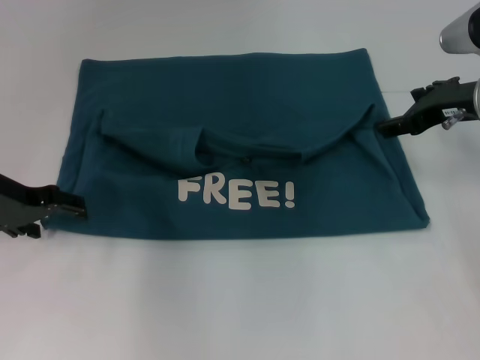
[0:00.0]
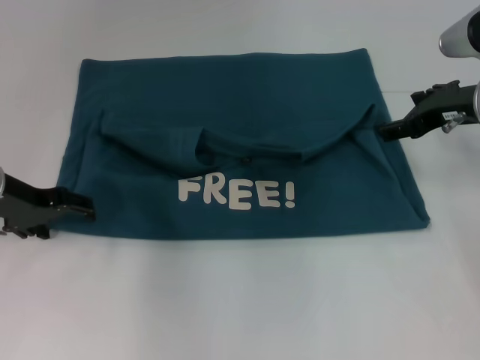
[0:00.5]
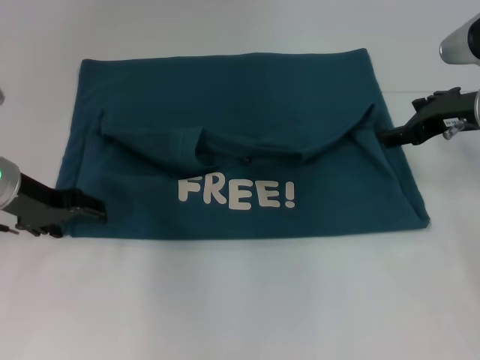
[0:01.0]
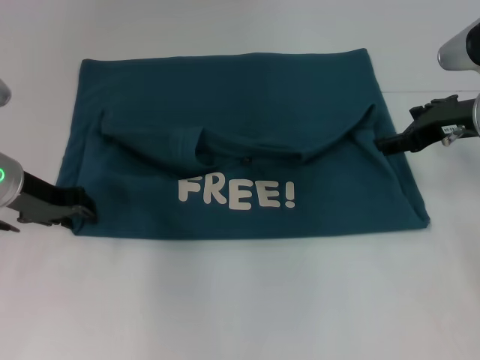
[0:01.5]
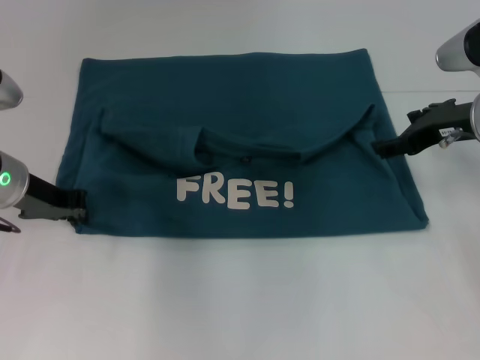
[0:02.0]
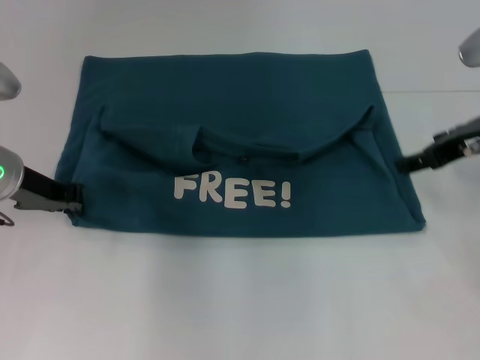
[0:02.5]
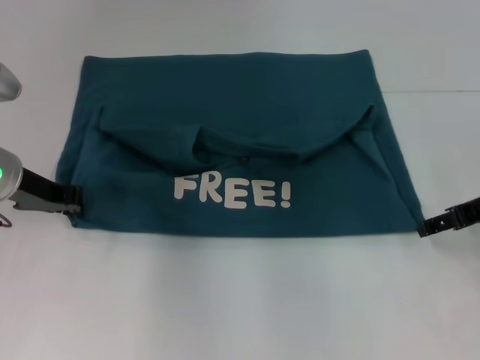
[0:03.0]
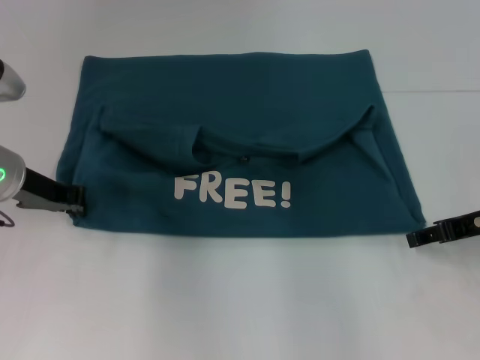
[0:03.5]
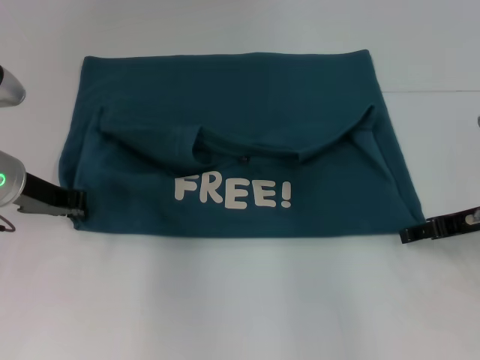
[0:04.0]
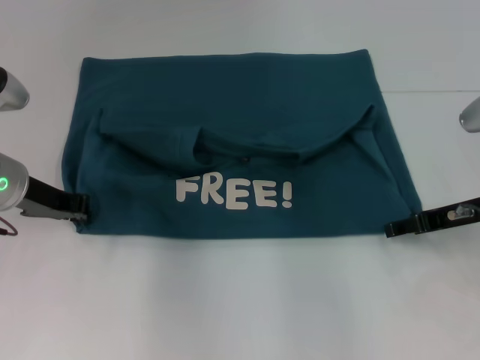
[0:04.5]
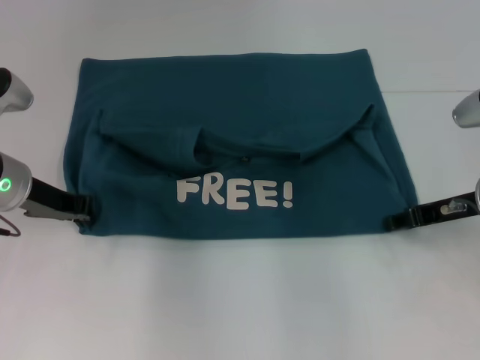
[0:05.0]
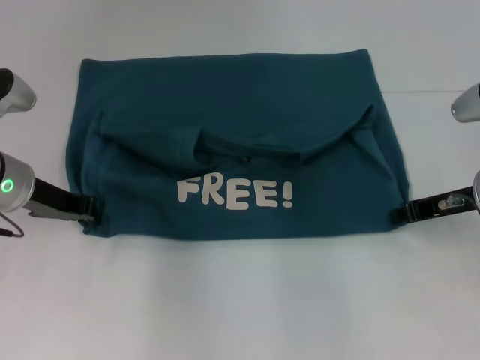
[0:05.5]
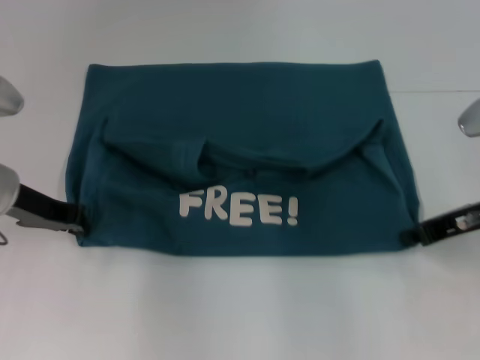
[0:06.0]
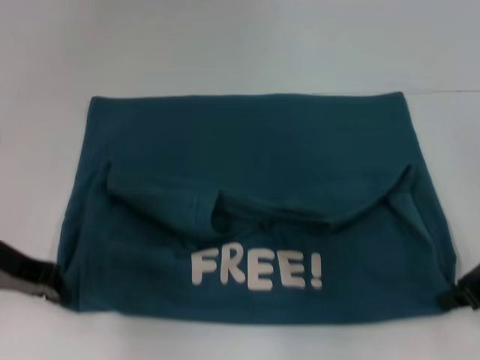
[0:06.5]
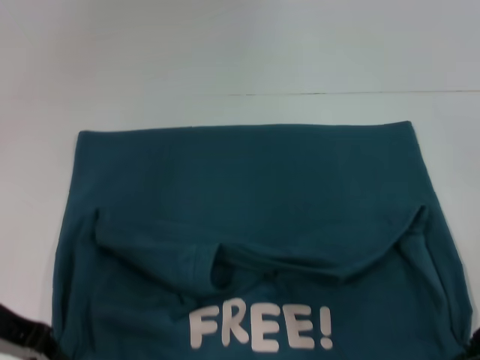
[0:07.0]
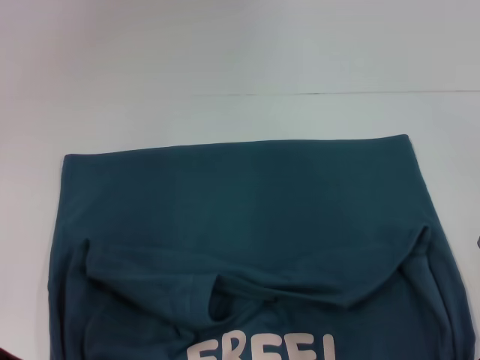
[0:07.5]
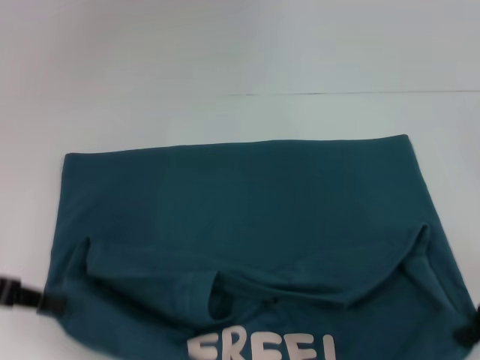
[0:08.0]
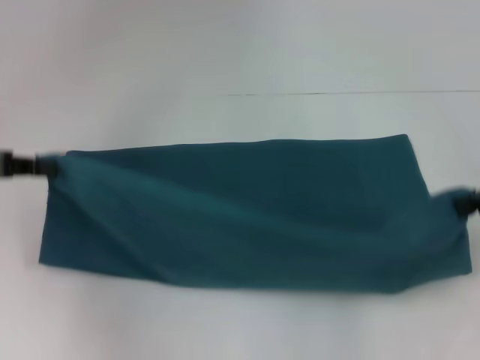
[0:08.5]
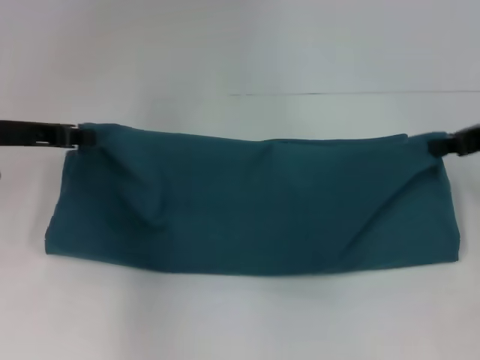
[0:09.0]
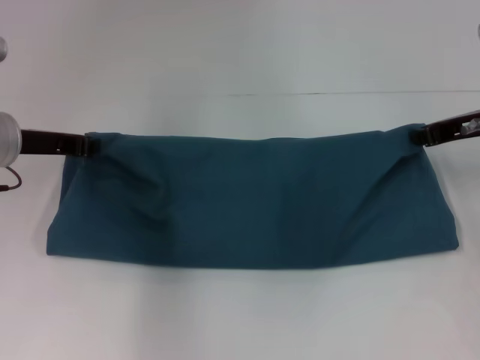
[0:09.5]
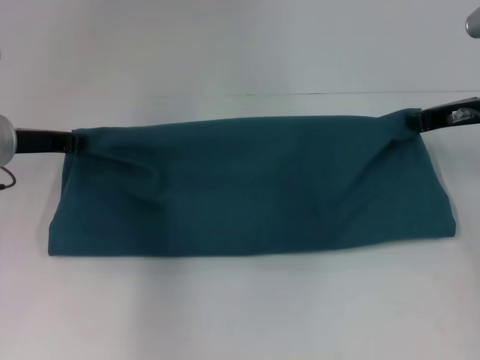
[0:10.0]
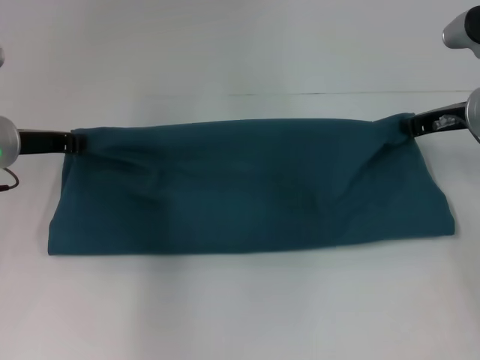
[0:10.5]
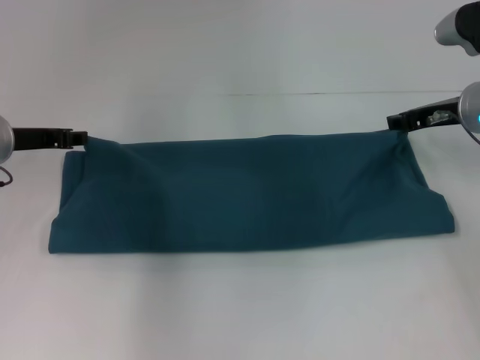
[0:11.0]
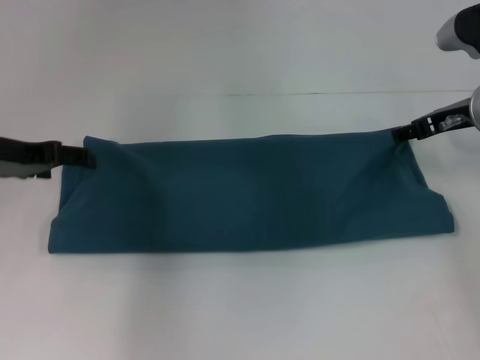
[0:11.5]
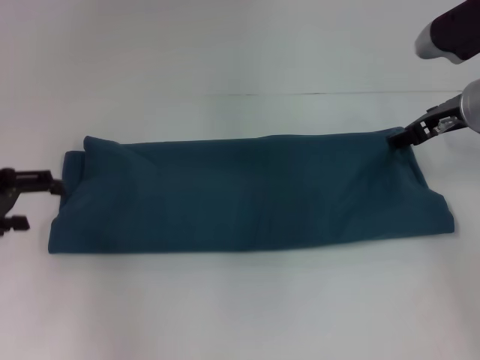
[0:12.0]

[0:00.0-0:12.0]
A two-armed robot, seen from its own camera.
Step, 0.0 to 6.5 s: Pull the clothes with your left hand.
Step, 0.0 to 6.5 s: Pull the clothes with your right hand.
Step, 7.0 to 11.5 s: Fold the clothes to the left.
Step, 7.0 to 11.5 s: Fold the clothes to the right.
0.0 to 2.0 s: The left gripper closes up.
2.0 to 4.0 s: The right gripper goes approximately 5 cm backward.
4.0 to 6.0 s: The right gripper closes its fingers.
6.0 to 8.0 s: The left gripper goes some 10 cm backward and to the left. The right gripper shifts approximately 5 cm backward.
8.0 to 10.0 s: The left gripper heads forward and to the right, covering roughly 15 cm. Meanwhile the right gripper goes roughly 15 cm forward.
10.0 to 12.0 s: The right gripper opens its fingers. Meanwhile the left gripper is displaced backward and to the left by about 10 cm, and opens up.

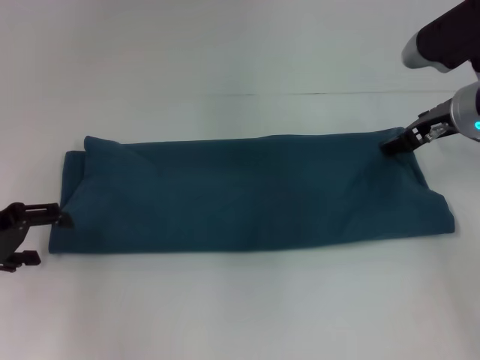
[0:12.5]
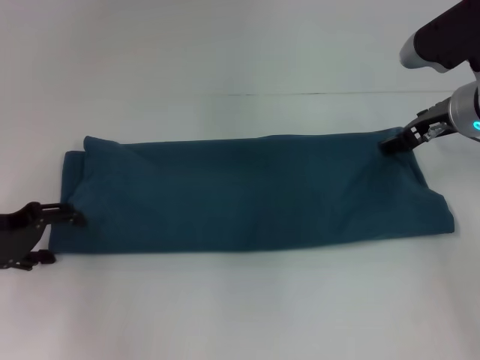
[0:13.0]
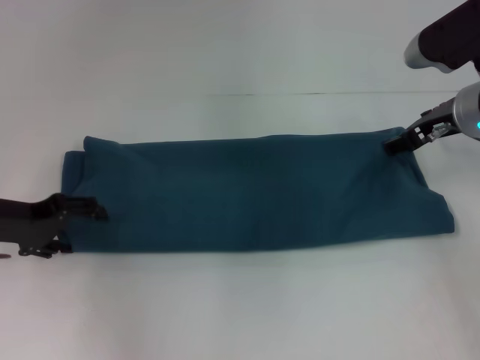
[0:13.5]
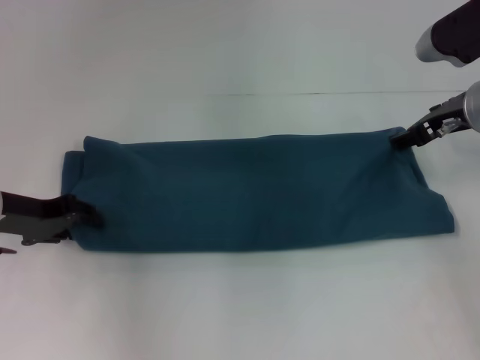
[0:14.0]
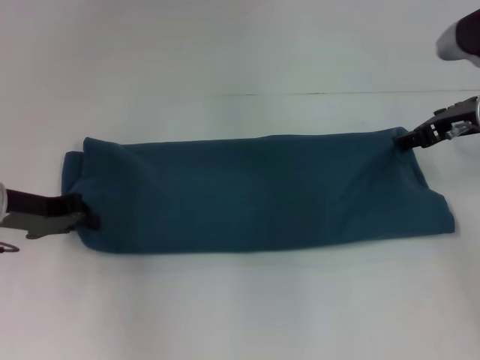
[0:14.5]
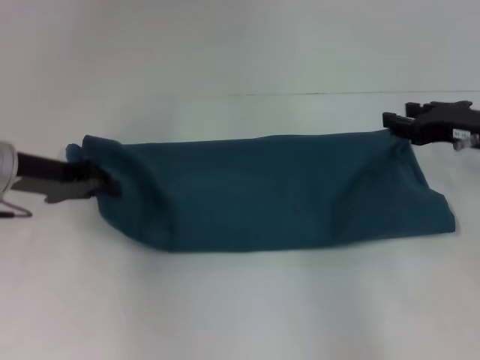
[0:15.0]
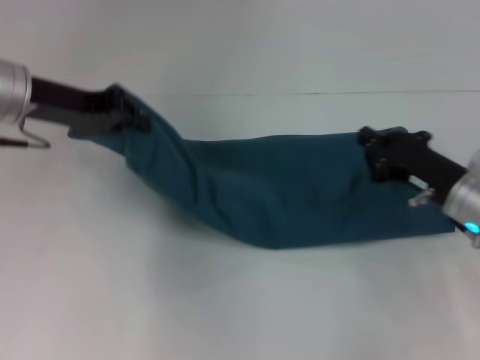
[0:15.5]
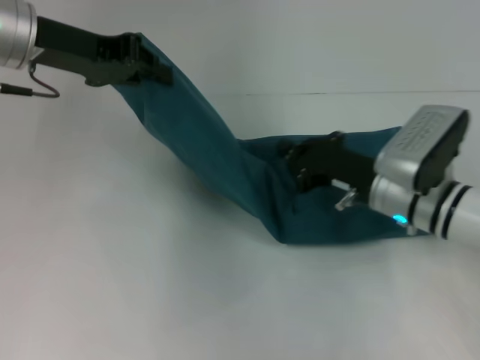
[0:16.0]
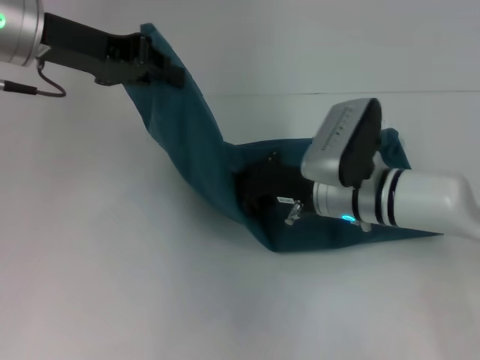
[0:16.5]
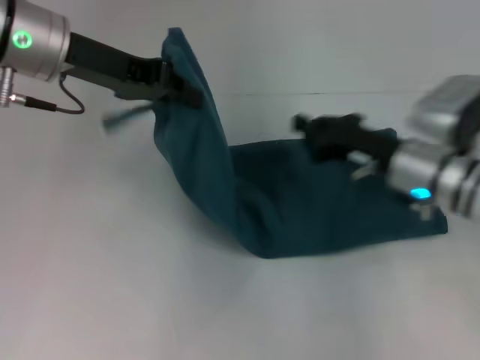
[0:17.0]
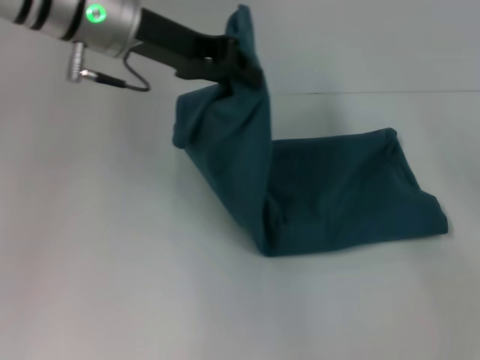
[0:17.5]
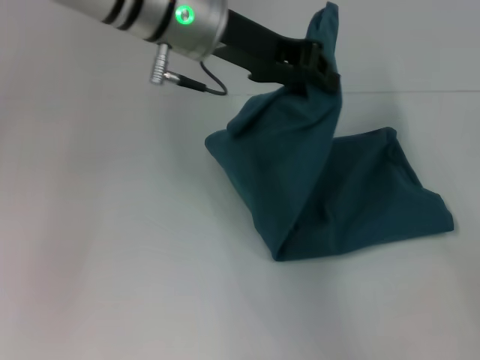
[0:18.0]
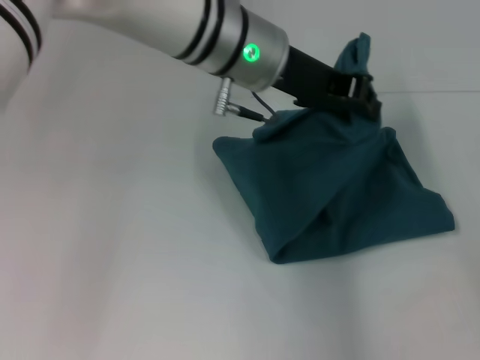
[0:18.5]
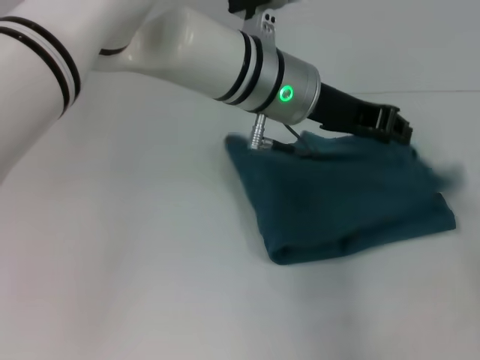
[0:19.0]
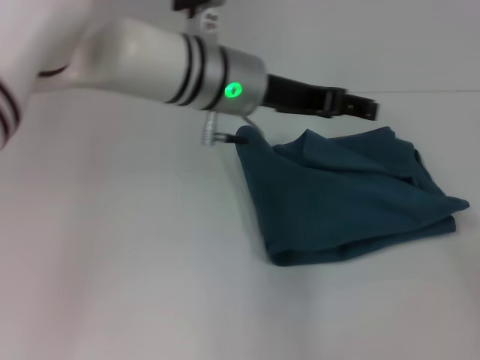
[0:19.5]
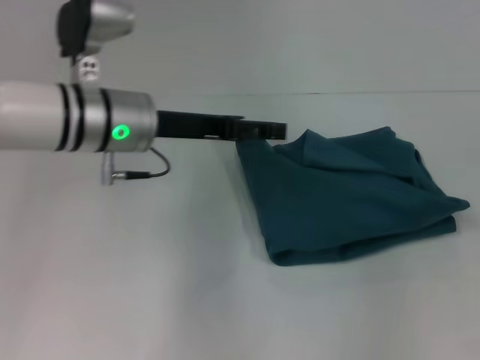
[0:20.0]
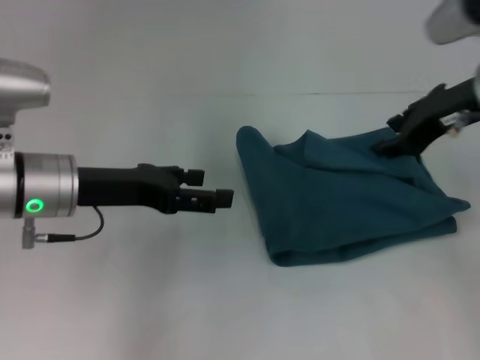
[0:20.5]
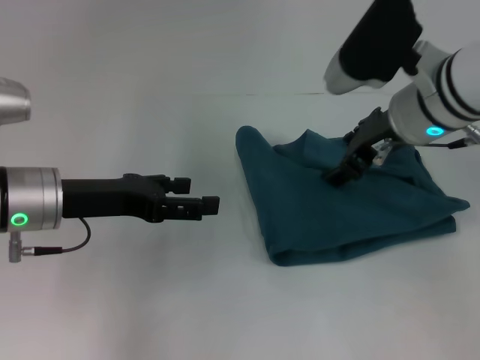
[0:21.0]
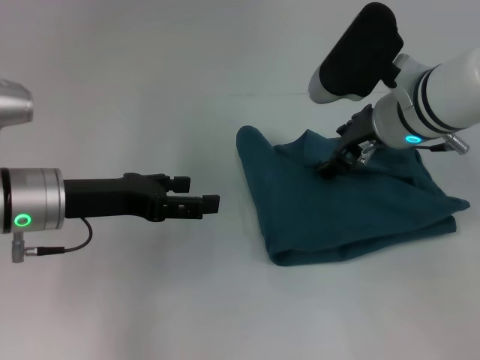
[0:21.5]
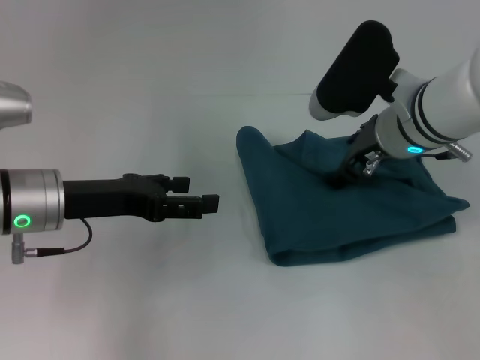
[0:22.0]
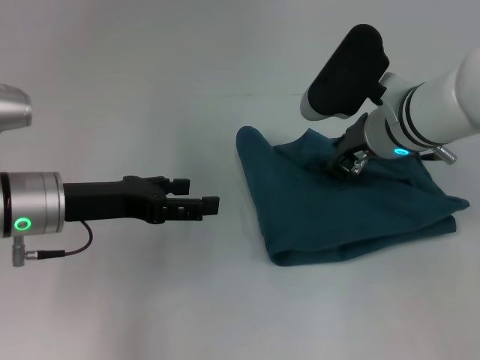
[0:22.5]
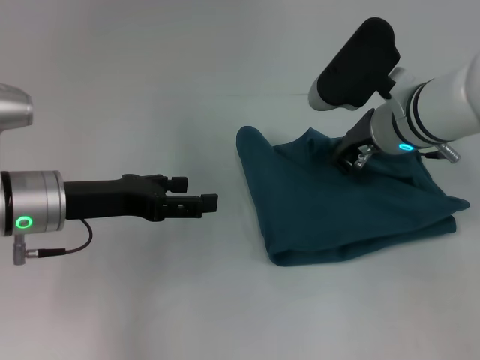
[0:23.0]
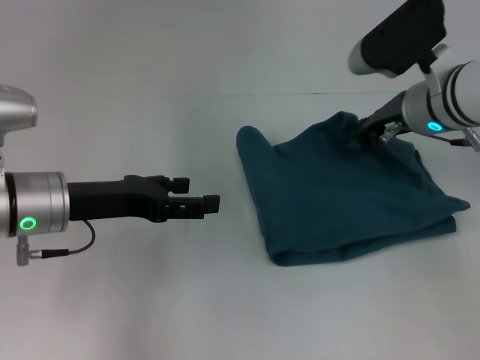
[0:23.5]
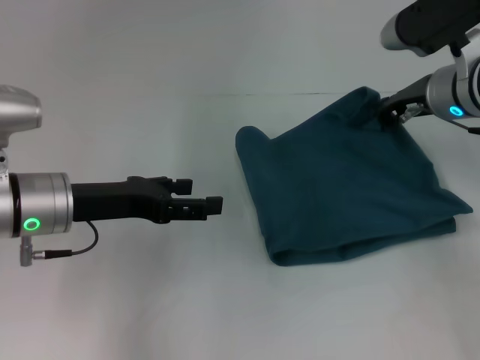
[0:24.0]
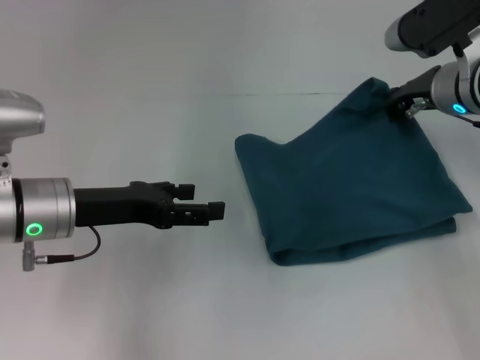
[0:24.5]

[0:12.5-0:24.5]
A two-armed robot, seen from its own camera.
Step, 12.5 to 16.5 s: Press the middle of the clothes with your right hand.
Step, 17.0 to 19.0 s: Fold the clothes to the left.
12.5 to 14.5 s: The left gripper shifts by about 5 cm, and closes.
14.5 to 16.5 s: The right gripper shifts about 15 cm to the left and downward, and closes its fingers. The left gripper moves upward and to the right, roughly 15 cm.
16.5 to 18.5 s: The right gripper travels to the right by roughly 30 cm. The left gripper moves to the right, some 20 cm.
18.5 to 20.5 s: The right gripper shifts roughly 25 cm to the left, forward and upward, while the left gripper heads to the left and downward, covering approximately 20 cm, and opens up.
20.5 to 22.5 s: The right gripper moves to the left and downward, some 10 cm.
22.5 to 24.5 s: The right gripper goes some 5 cm to the right, and closes up.

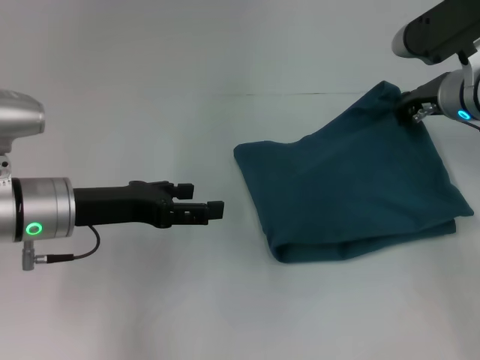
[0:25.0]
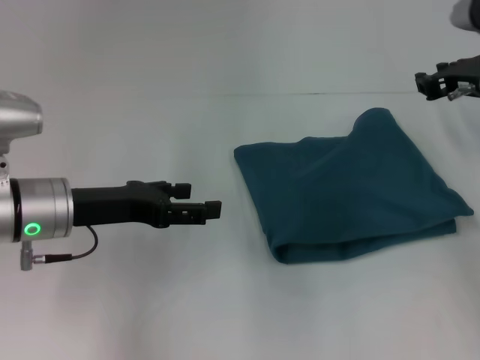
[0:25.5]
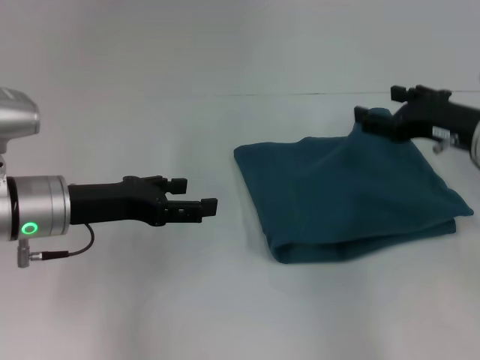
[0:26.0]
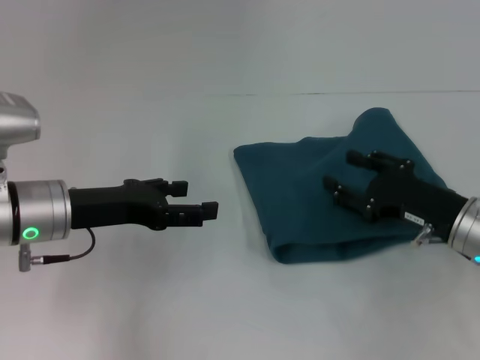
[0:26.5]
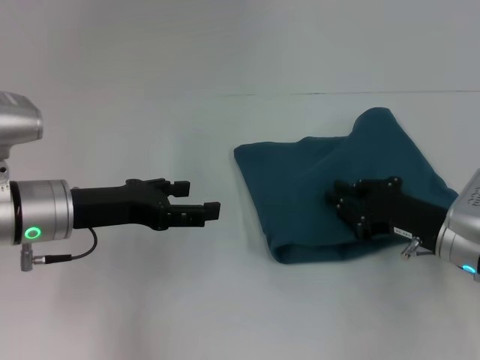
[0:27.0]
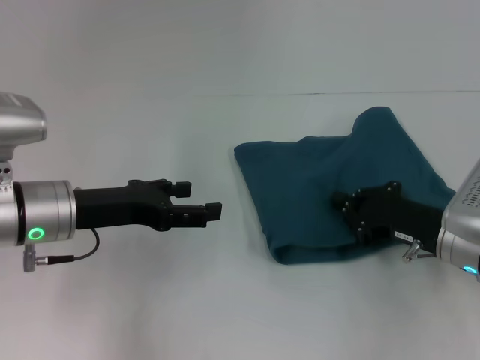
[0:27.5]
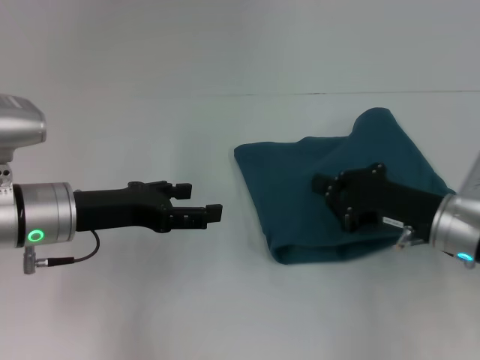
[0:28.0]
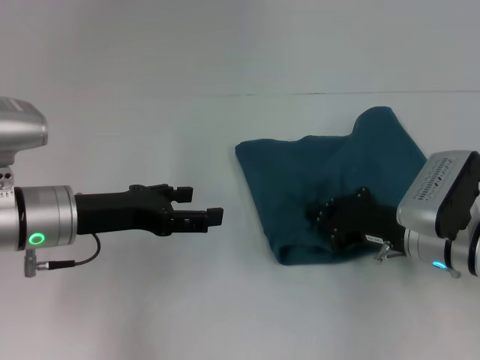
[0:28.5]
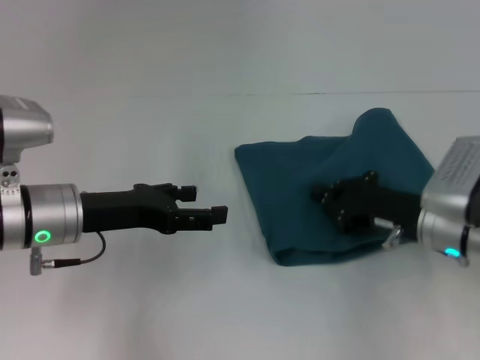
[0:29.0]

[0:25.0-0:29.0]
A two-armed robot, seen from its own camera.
25.0 to 27.0 s: The right gripper goes approximately 15 cm backward and downward, and opens.
27.0 to 29.0 s: The right gripper closes up.
